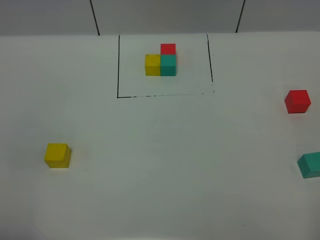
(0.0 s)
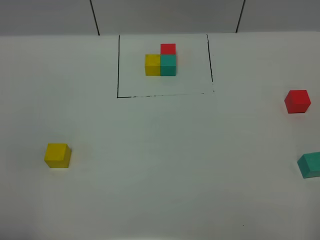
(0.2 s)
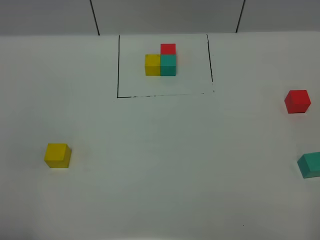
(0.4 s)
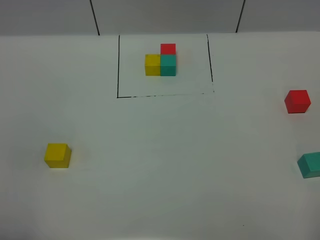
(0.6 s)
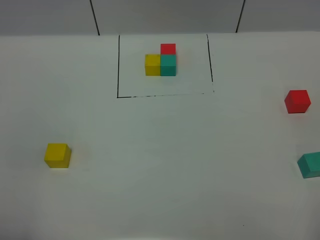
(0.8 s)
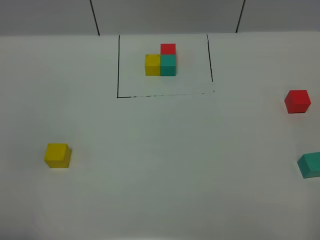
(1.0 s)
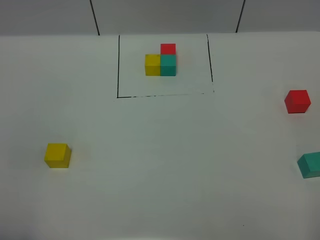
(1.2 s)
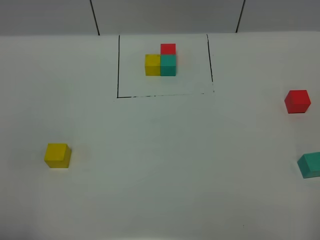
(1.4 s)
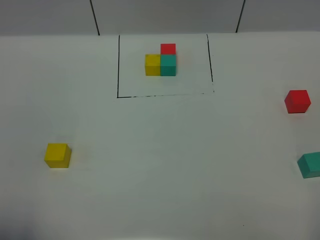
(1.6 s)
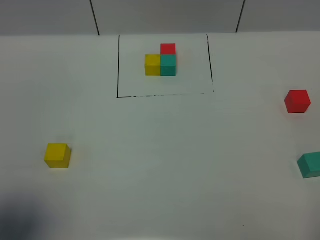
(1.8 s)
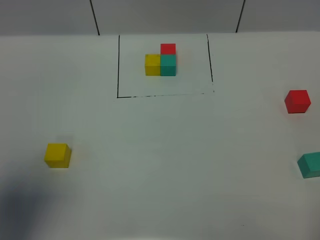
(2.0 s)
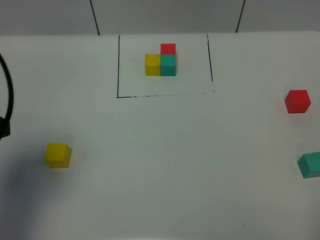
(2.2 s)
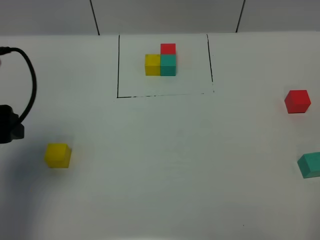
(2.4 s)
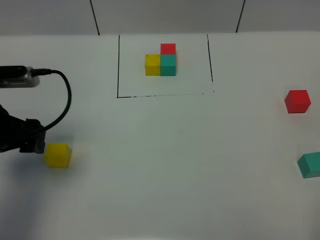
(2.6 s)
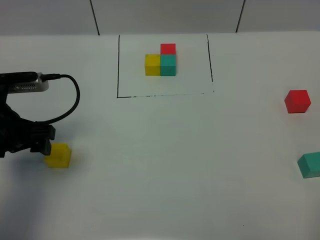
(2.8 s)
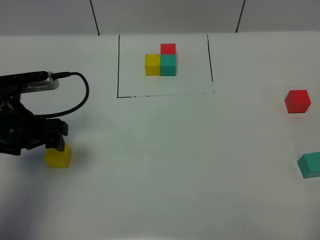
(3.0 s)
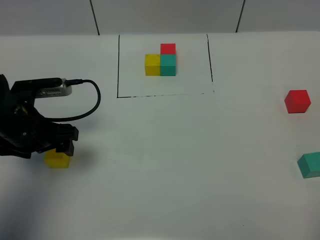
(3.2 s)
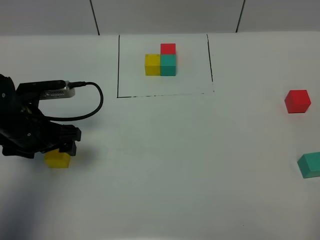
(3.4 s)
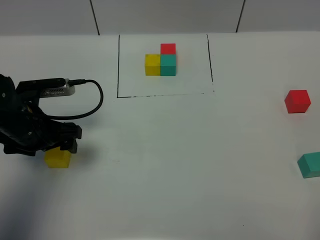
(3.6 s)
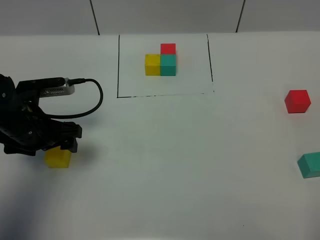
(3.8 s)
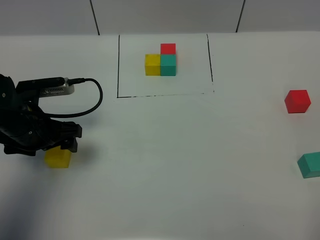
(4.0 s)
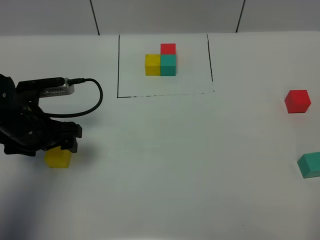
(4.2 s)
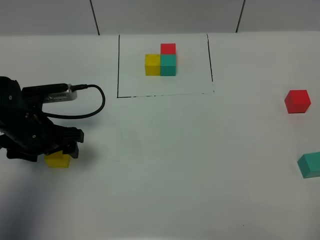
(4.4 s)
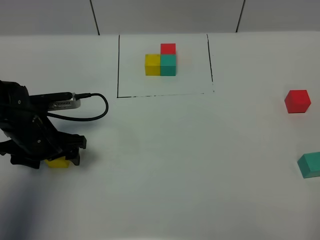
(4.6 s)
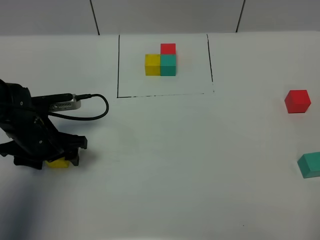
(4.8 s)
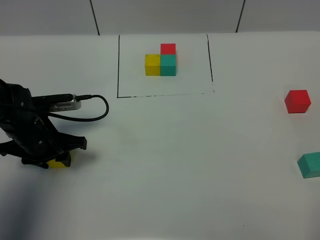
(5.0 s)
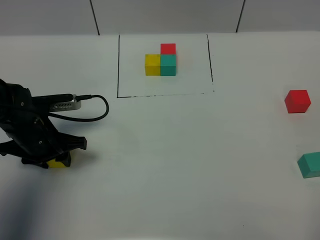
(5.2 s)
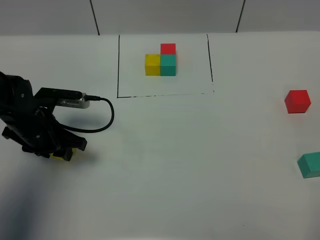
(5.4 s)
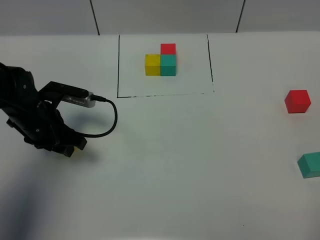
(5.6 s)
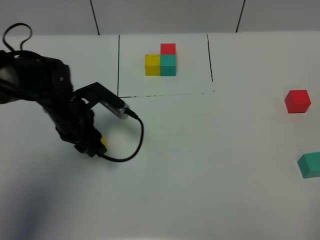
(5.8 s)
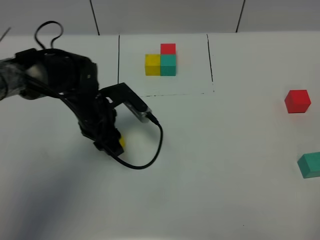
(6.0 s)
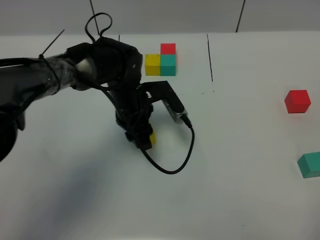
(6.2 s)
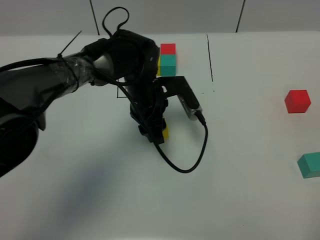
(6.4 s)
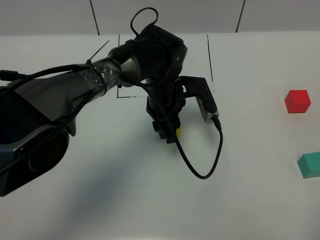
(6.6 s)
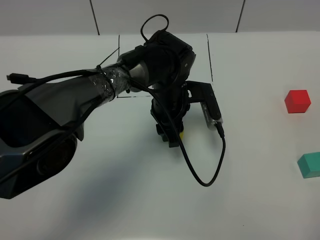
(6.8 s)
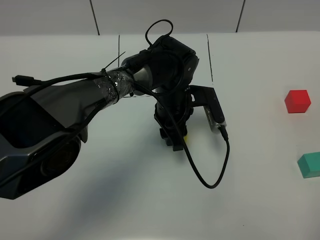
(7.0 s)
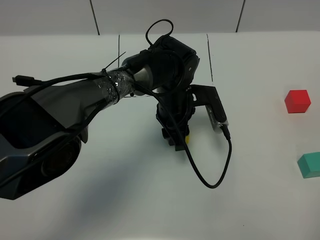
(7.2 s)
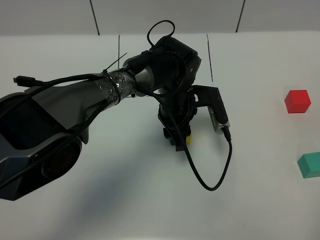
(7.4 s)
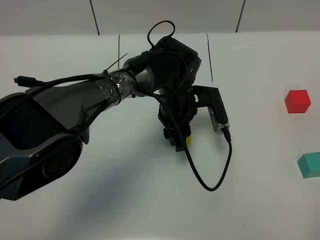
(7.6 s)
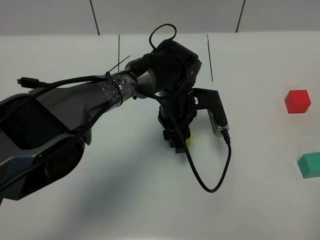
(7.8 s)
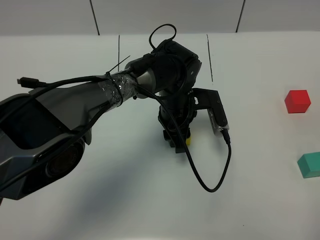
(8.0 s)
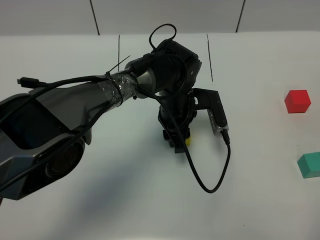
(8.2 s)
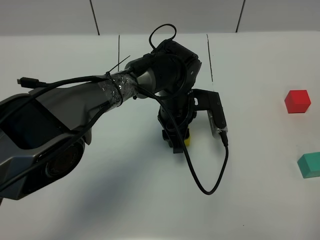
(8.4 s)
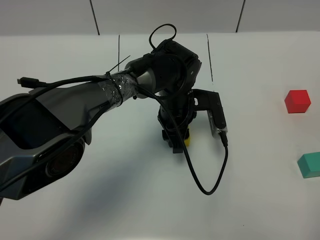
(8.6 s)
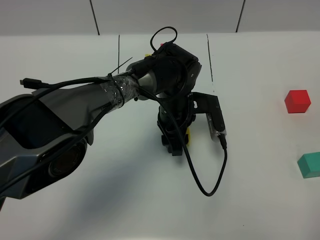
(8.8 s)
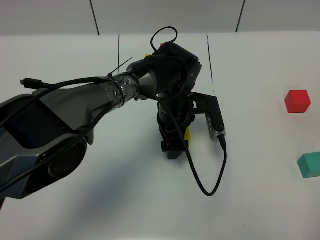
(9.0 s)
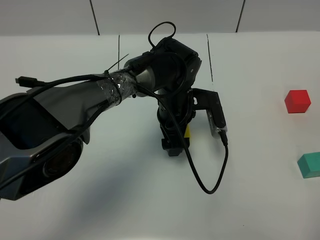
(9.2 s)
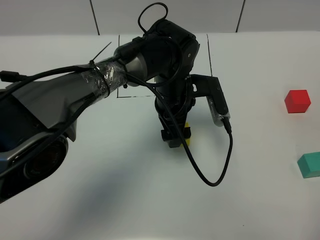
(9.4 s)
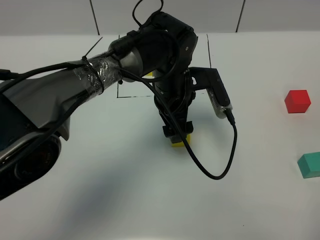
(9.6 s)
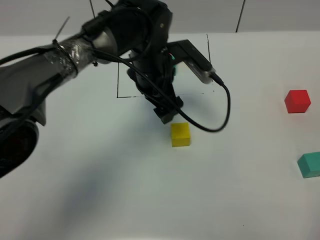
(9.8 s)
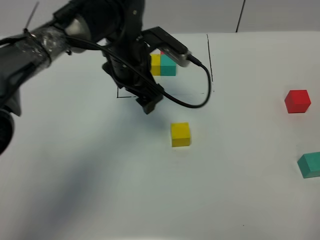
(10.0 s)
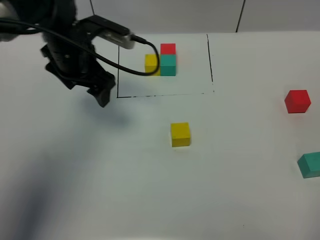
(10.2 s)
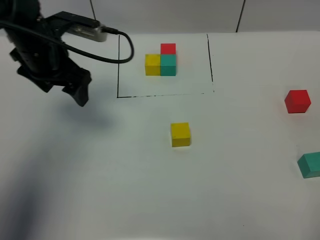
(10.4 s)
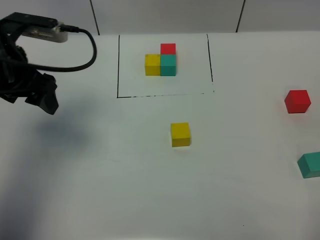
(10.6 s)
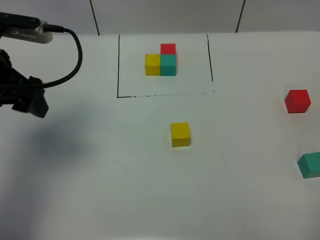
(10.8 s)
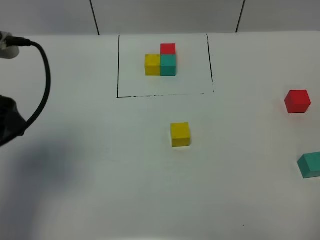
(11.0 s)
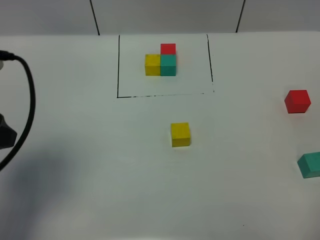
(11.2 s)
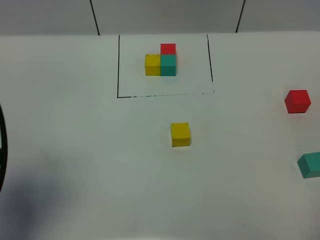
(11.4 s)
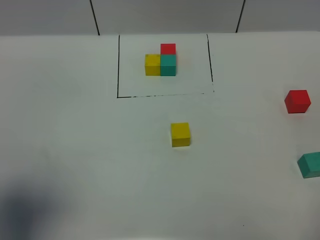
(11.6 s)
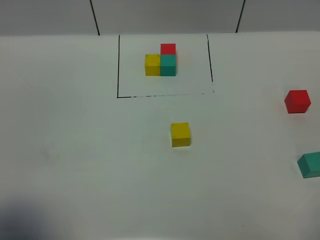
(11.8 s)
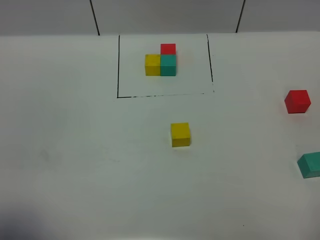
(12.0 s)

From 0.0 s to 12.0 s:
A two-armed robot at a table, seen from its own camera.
Task of the whole recording: According to the building block template in front, assemble the scattered blocks together.
Step, from 0.0 s to 8.6 s: Put the yellow build block in the center of the table.
From 1.6 s to 3.0 s: The left gripper shifts about 30 cm forward and downward.
From 3.0 s to 4.4 s: The grippers move only a little.
From 4.4 s to 6.0 s: The left gripper heads to the right and forward, covering approximately 15 cm, and closes up.
From 6.0 s to 7.6 s: The left gripper moves to the right, roughly 15 cm.
From 7.6 s to 9.0 s: The left gripper opens up.
From 9.0 s to 10.4 s: The left gripper moves to the left and upward, some 30 cm.
From 10.4 s to 12.0 s: The left gripper goes roughly 35 cm backward.

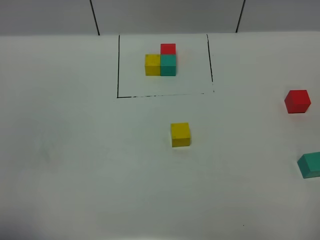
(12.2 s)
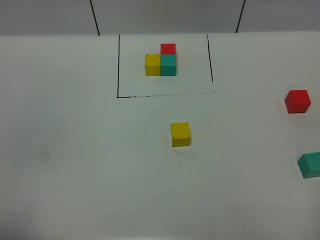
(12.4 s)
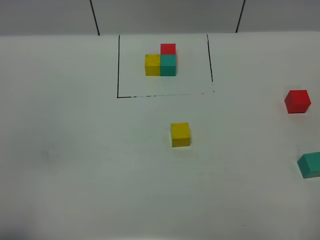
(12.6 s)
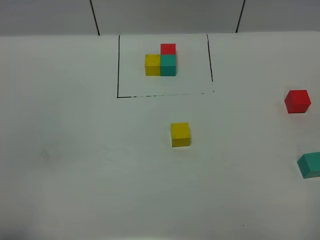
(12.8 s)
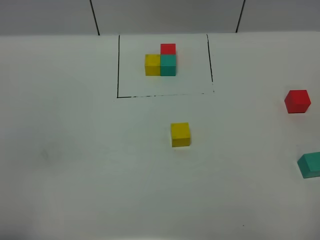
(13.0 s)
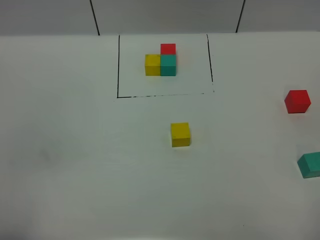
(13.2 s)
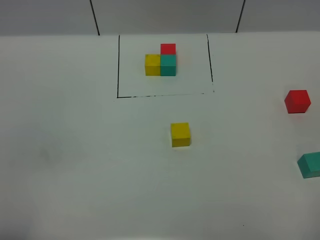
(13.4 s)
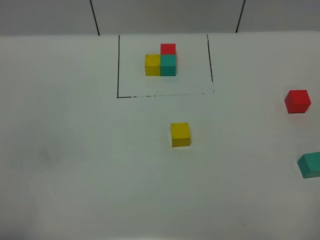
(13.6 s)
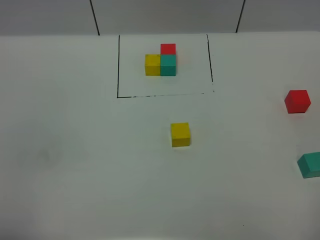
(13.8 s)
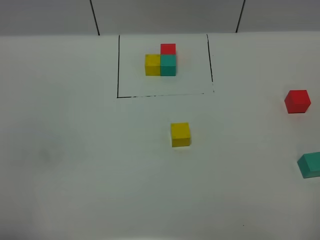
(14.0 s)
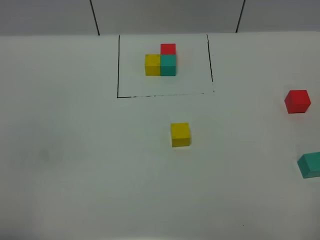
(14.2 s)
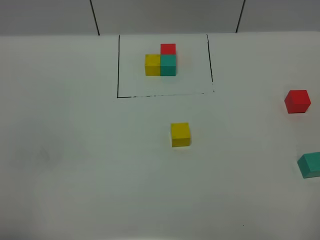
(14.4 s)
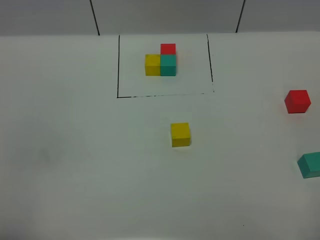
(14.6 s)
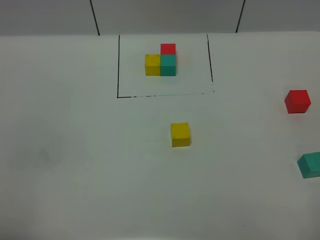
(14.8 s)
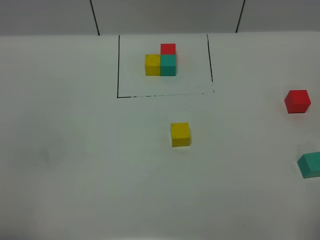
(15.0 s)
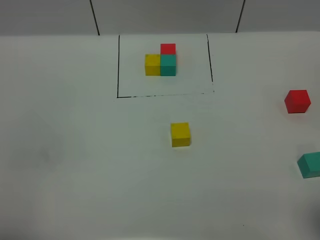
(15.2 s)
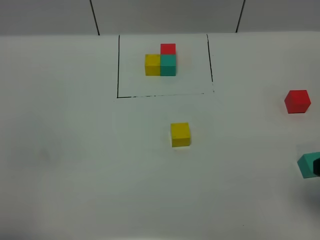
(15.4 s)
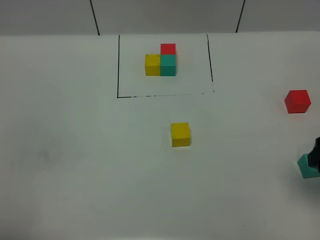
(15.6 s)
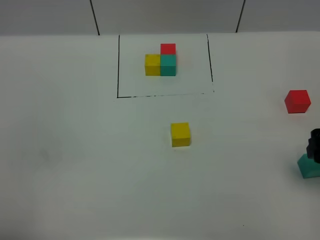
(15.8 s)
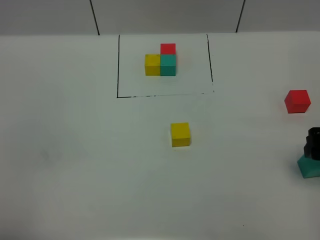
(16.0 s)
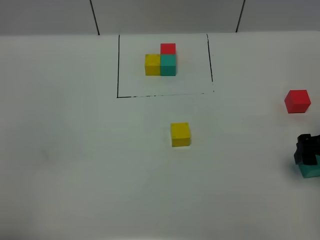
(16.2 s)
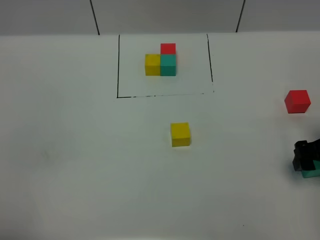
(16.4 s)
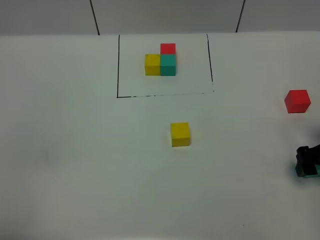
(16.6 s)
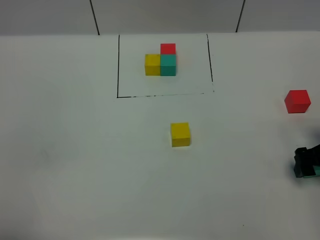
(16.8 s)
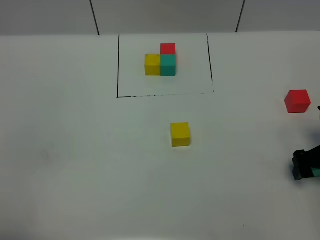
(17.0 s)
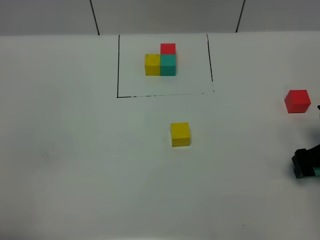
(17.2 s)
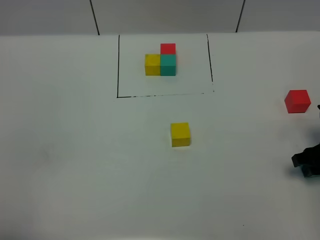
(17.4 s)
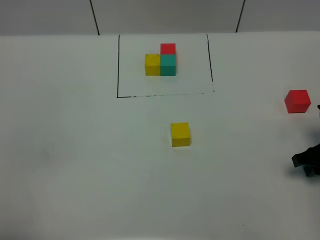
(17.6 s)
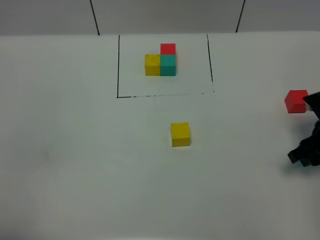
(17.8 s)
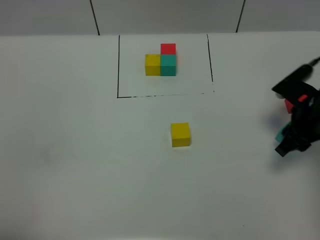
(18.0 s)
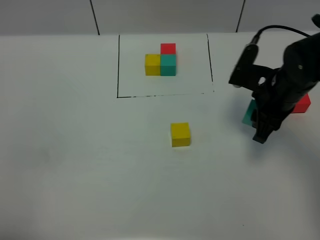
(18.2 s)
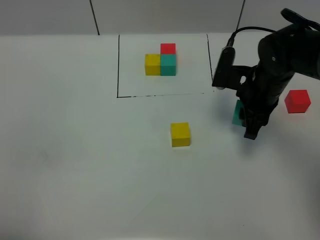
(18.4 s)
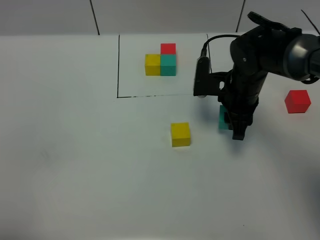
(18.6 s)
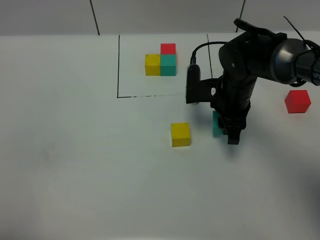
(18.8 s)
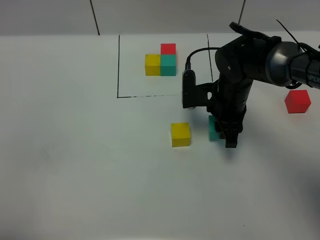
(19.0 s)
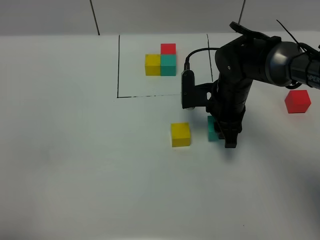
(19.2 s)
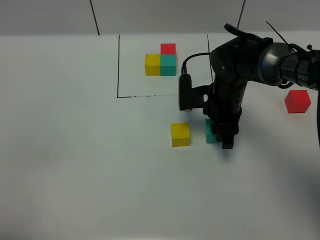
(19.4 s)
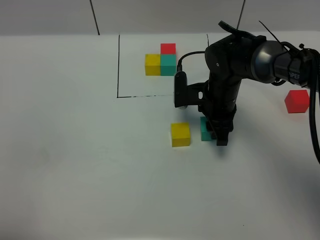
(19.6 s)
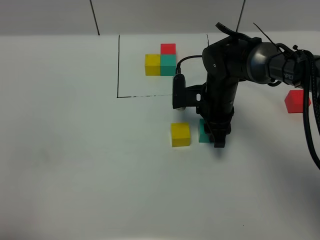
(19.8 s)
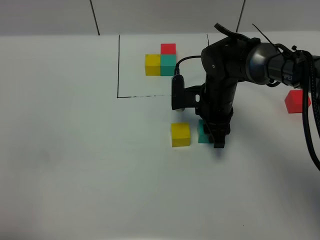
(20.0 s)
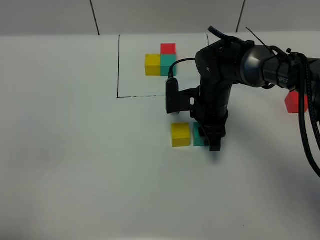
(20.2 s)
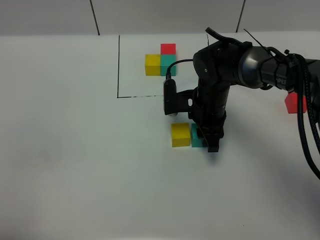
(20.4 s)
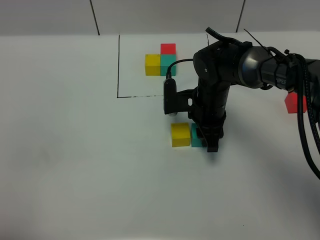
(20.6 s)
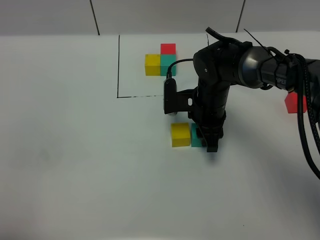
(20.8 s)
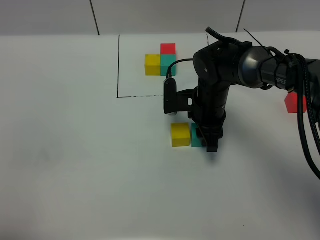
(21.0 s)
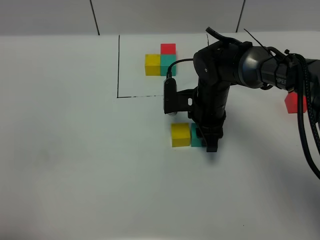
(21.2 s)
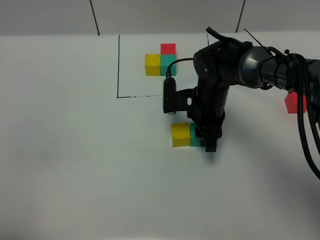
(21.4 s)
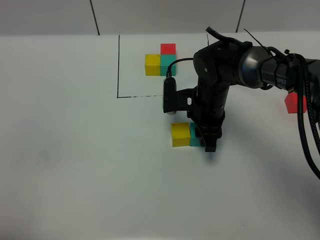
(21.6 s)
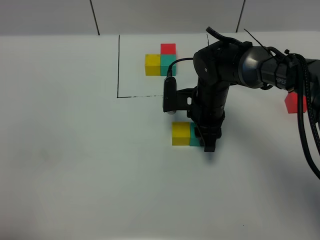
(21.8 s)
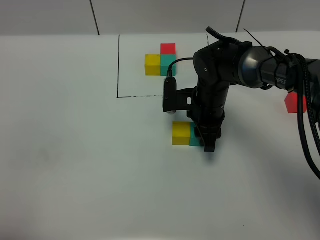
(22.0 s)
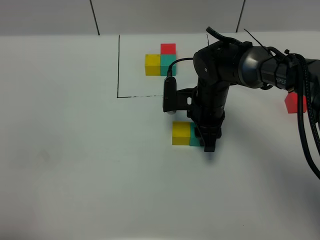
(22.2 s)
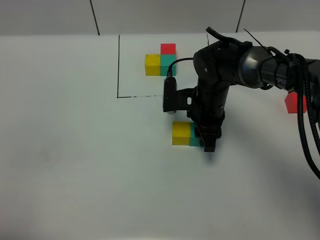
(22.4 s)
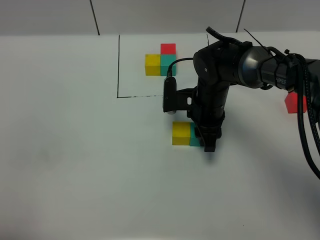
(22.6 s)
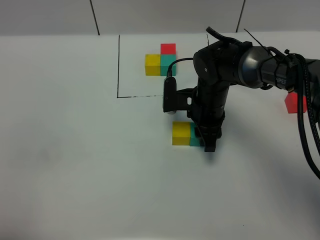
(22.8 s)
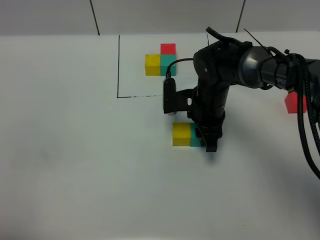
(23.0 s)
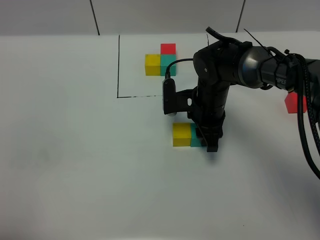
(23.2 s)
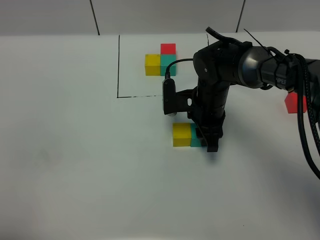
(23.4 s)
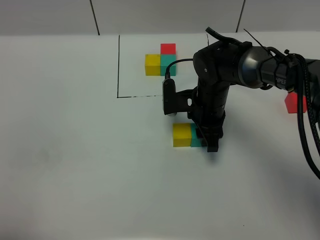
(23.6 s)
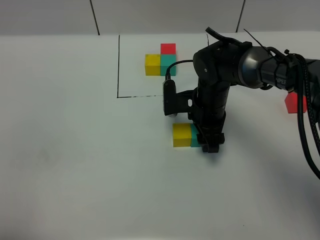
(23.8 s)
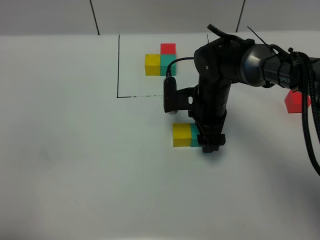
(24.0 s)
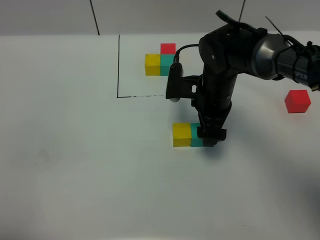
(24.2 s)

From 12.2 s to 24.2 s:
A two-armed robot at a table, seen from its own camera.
Task of the whole recording: According to the building block template in front, assemble the scattered blocks together.
Step, from 12.2 s to 22.8 s: Put the green build block on the right of the yellow build block.
From 15.2 s to 16.6 s: The right gripper travels forward and downward by roughly 25 cm.
From 16.6 s to 18.2 s: The right gripper heads to the left, forward and upward, covering about 15 cm, and closes.
From 18.2 s to 19.8 s: The right gripper is displaced to the left and downward by about 10 cm.
From 19.8 s to 21.2 s: There are only small adjustments of the grippers.
From 21.2 s to 22.6 s: The two grippers keep their place.
From 22.6 s to 24.2 s: The right gripper opens up.
